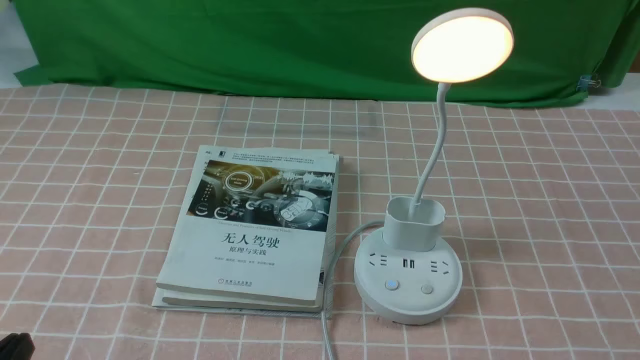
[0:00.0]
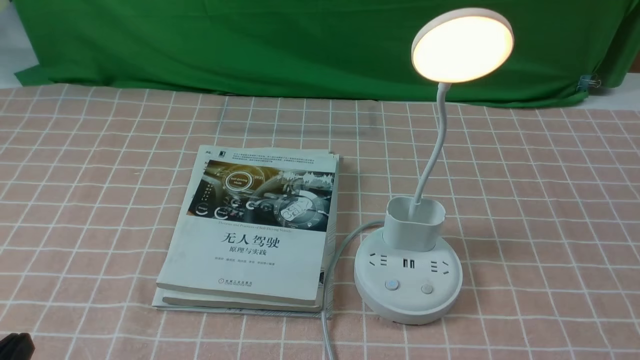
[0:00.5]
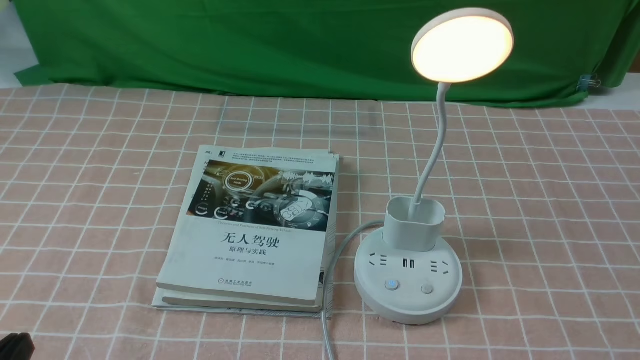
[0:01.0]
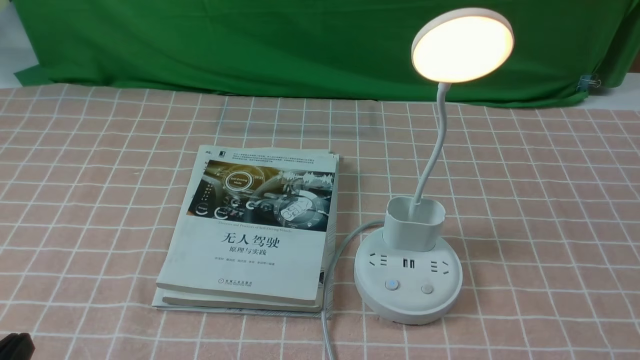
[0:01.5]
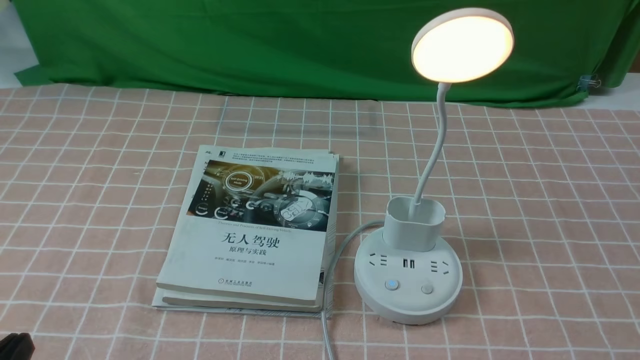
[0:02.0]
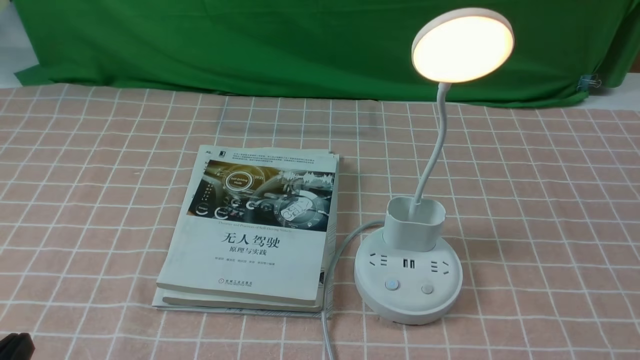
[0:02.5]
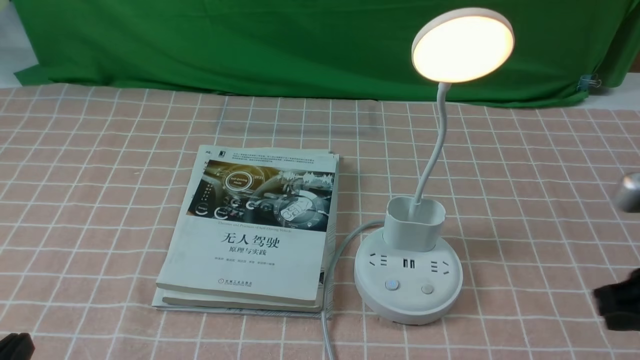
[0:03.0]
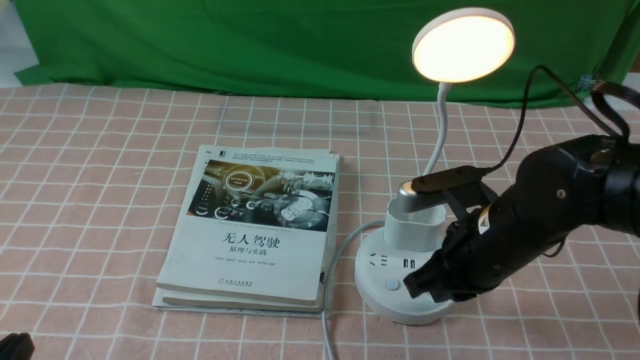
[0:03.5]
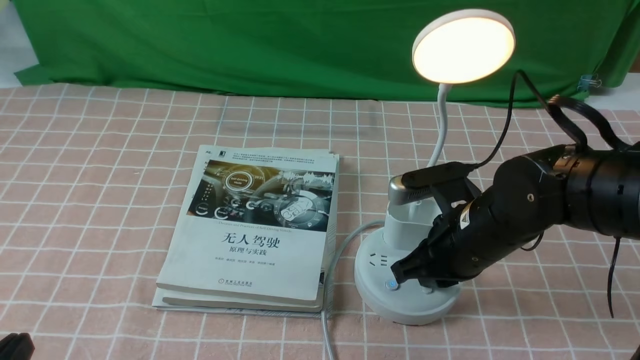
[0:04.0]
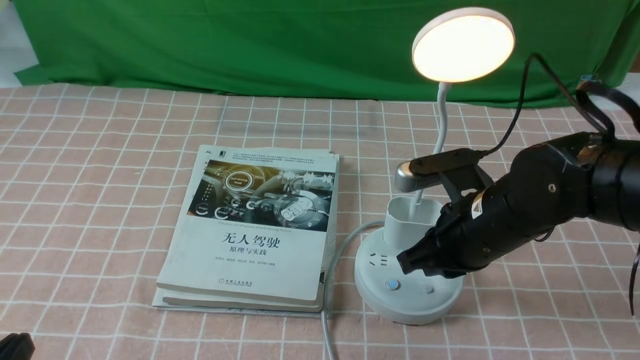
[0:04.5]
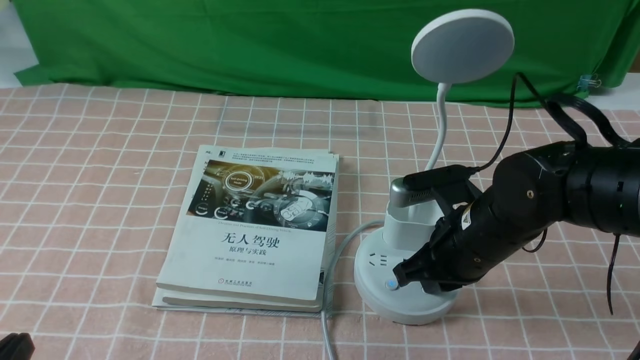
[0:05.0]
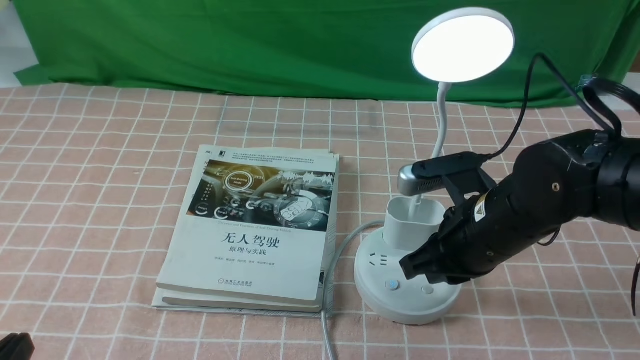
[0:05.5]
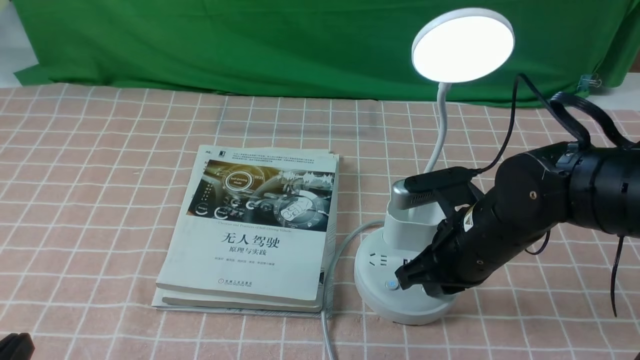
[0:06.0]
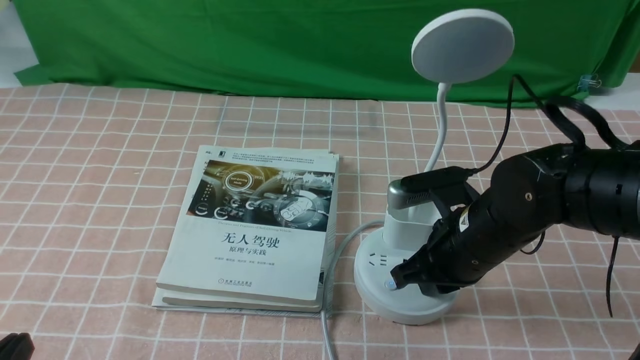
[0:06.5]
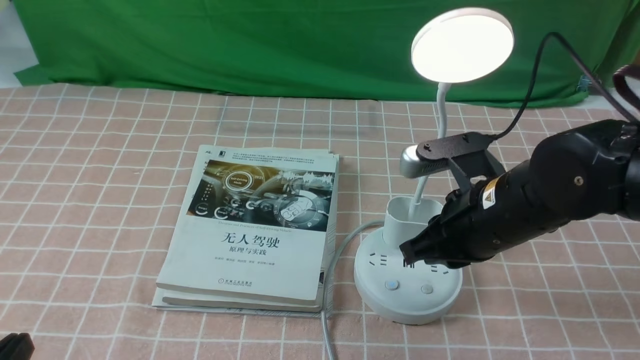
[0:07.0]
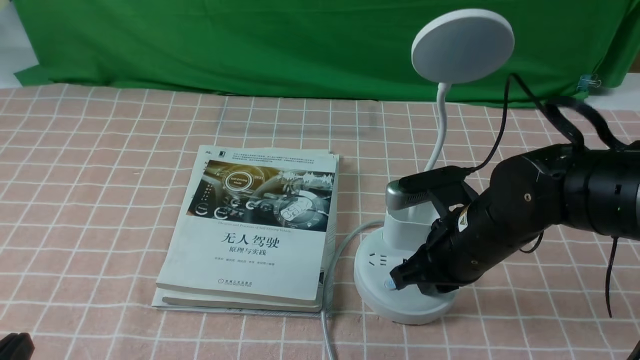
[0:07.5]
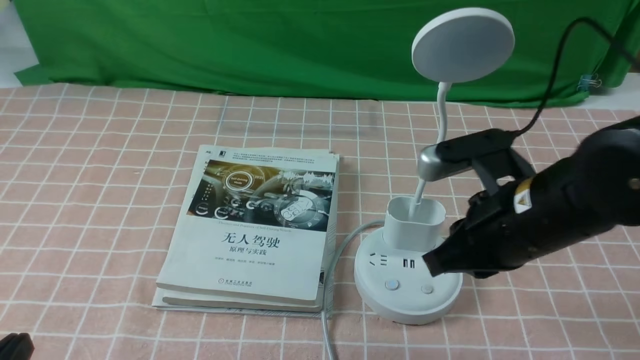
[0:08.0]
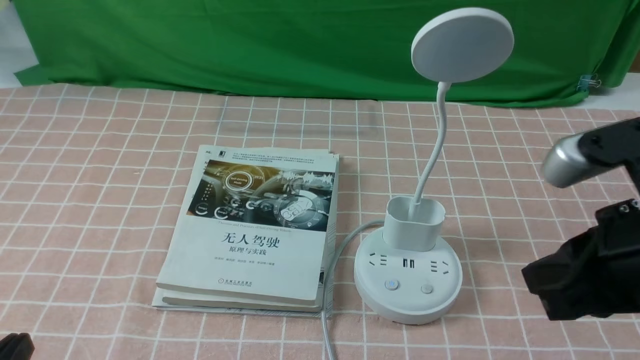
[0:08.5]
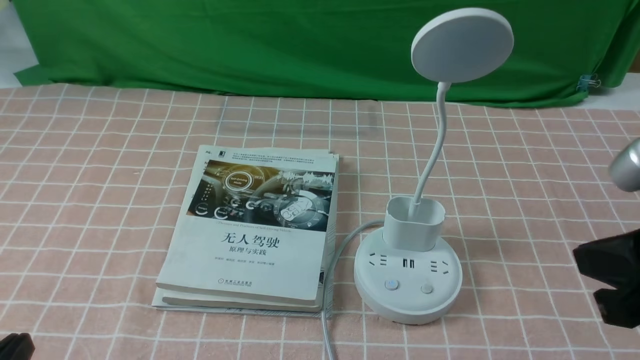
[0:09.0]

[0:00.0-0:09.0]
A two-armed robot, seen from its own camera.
Task of the whole recording: turn off the table lamp on the pink coffee tablecloth by hand.
Step, 0:00.0 to 0:07.5: use the right arm to press the button switch on the lamp holder.
0:02.0 to 0:04.5: The right gripper heads forward and to the left, covering approximately 30 cm, and closes up.
0:04.5 to 0:07.0: The grippers move only a little.
0:07.0 to 0:09.0: The right gripper shifts approximately 20 cm backward, to the right and upward.

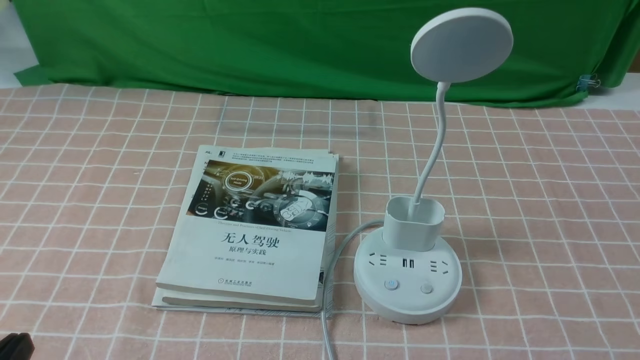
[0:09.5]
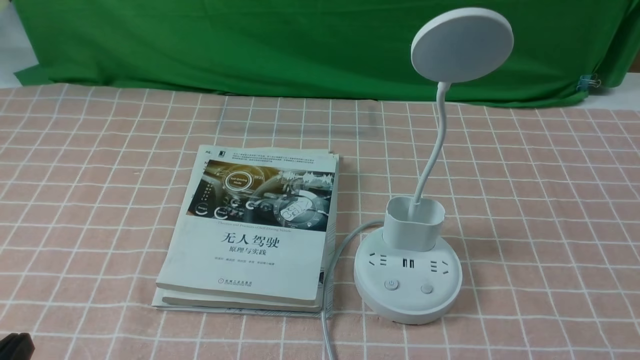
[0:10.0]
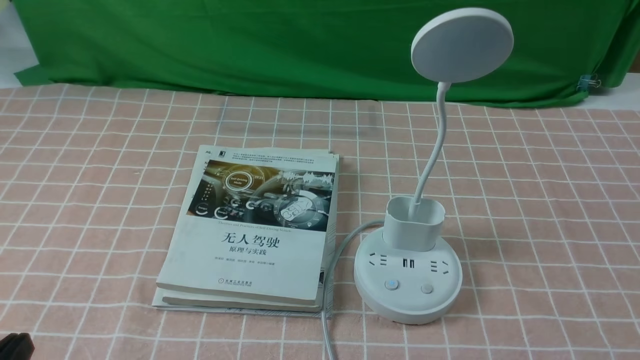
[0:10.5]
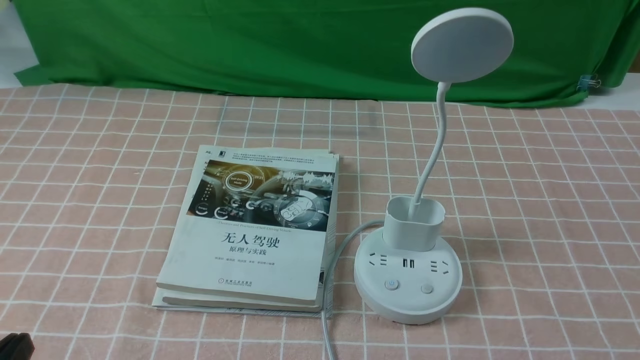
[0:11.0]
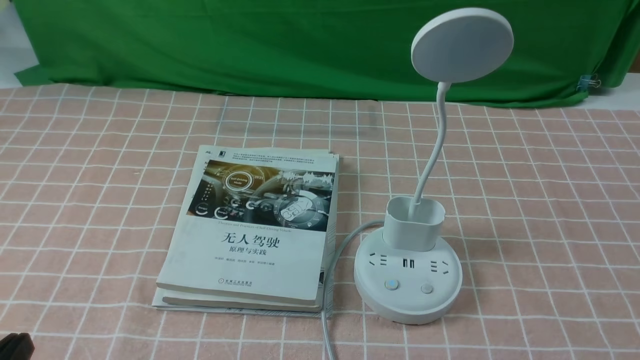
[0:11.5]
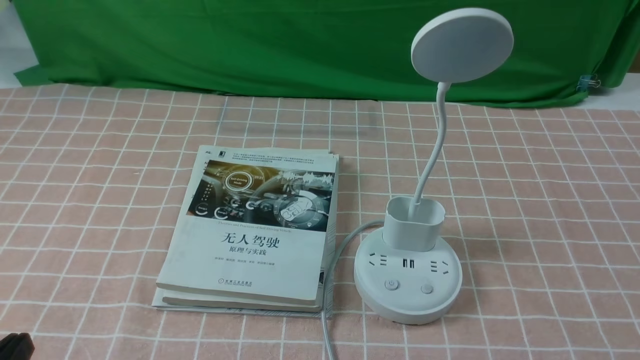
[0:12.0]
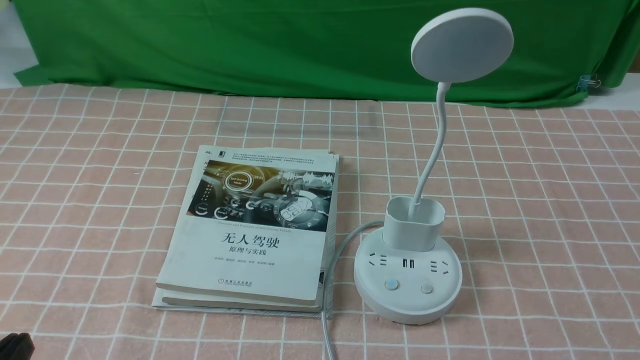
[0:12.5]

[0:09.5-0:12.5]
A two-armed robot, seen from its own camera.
Task of the whole recording: turn off the table lamp on the pink coffee tablecloth by hand.
0:11.0 to 0:12.5: Both grippers stay put.

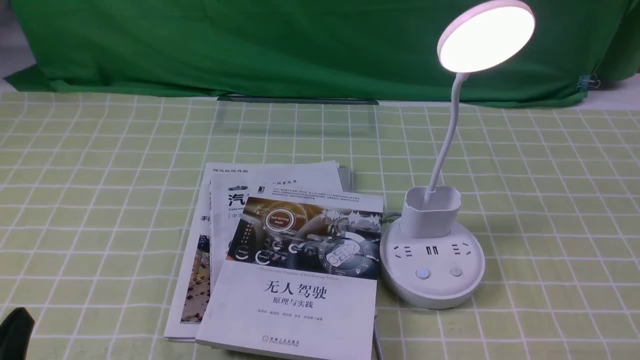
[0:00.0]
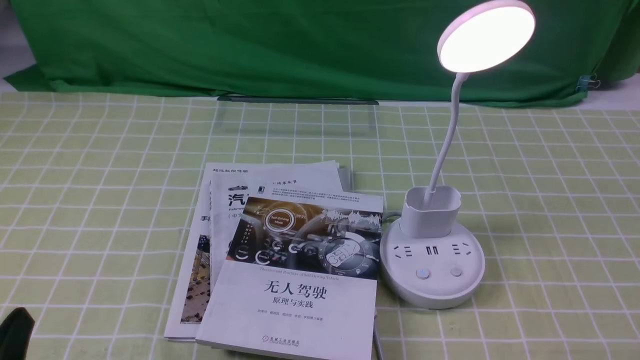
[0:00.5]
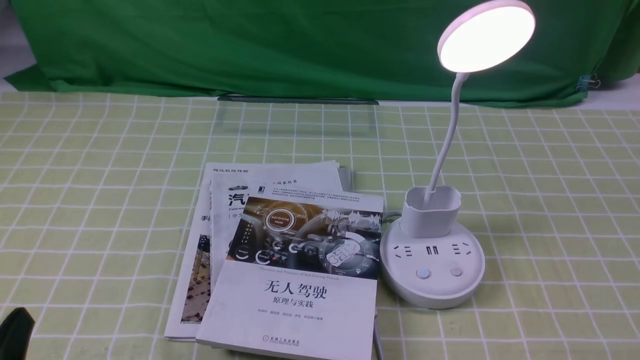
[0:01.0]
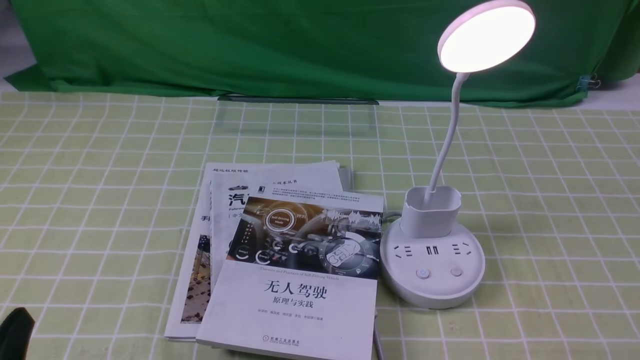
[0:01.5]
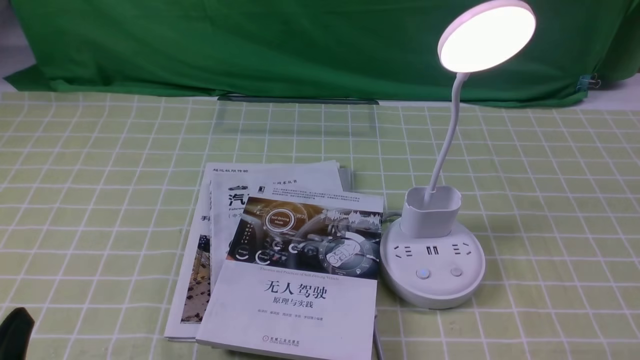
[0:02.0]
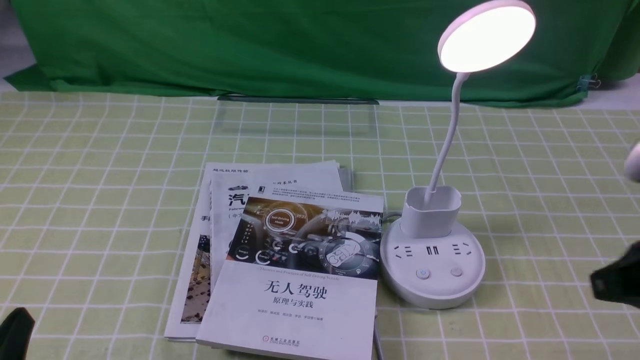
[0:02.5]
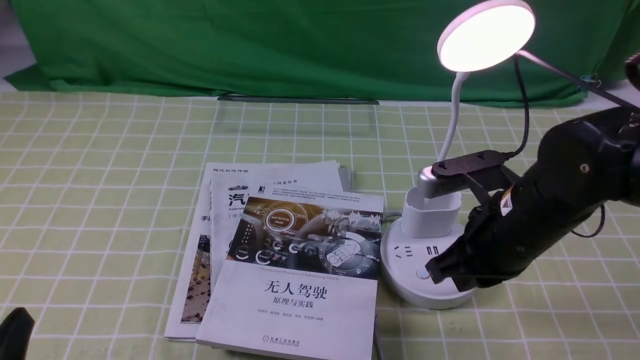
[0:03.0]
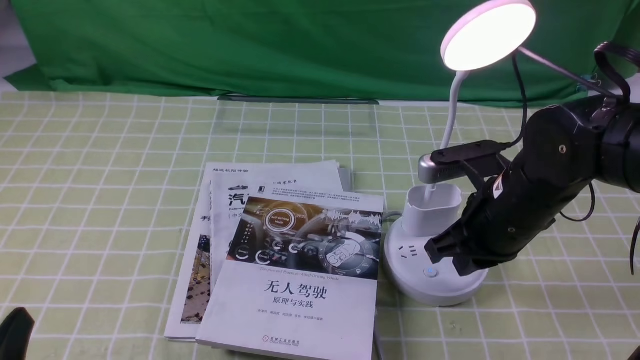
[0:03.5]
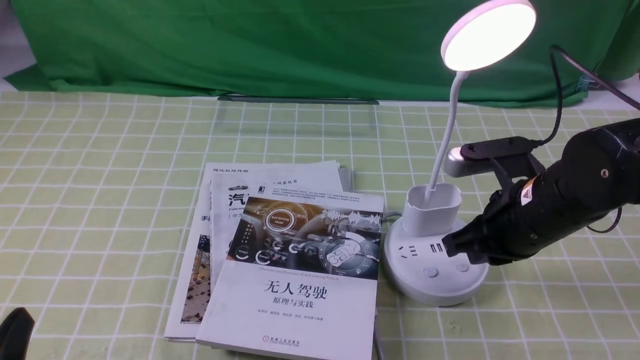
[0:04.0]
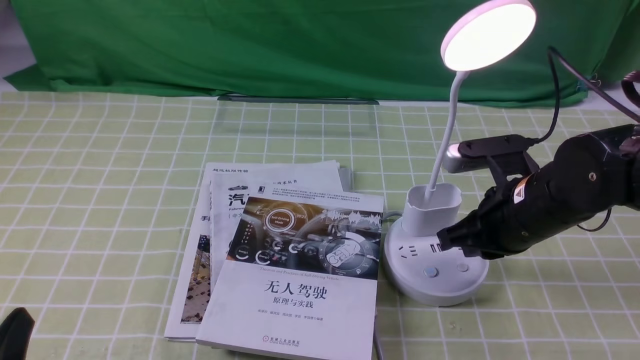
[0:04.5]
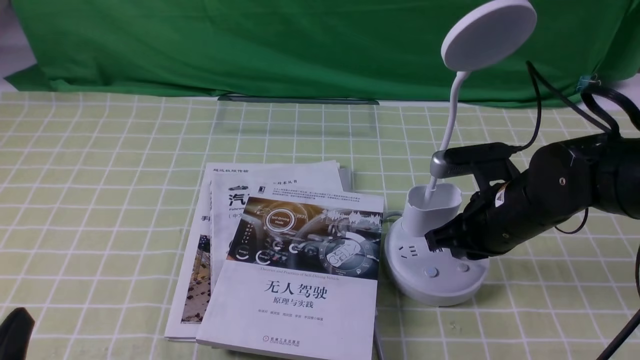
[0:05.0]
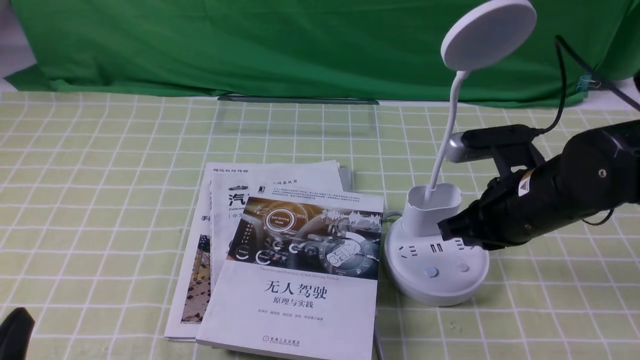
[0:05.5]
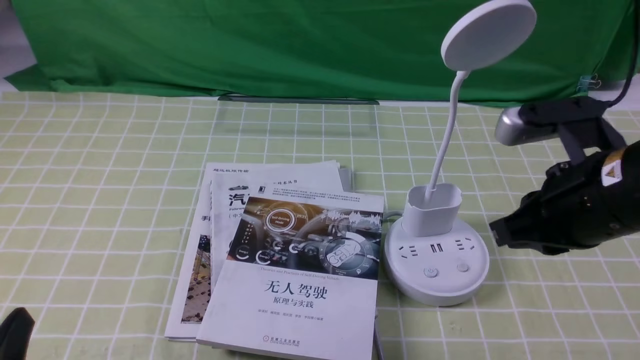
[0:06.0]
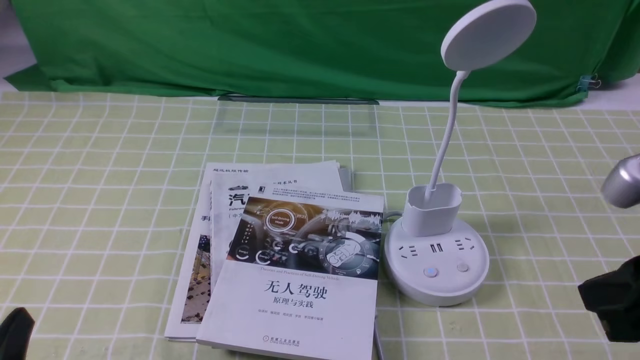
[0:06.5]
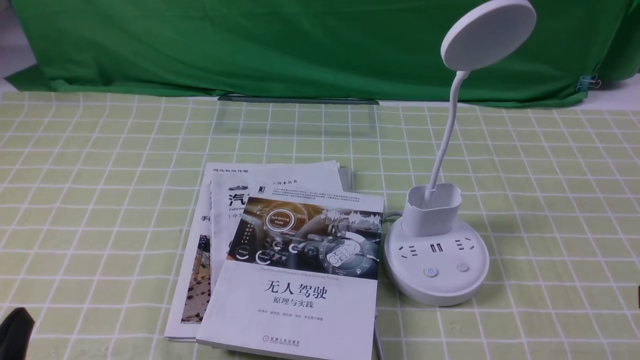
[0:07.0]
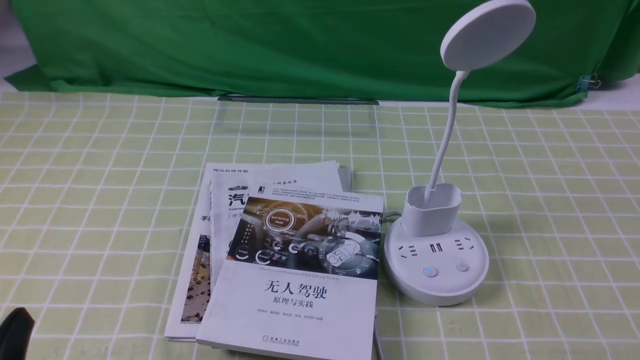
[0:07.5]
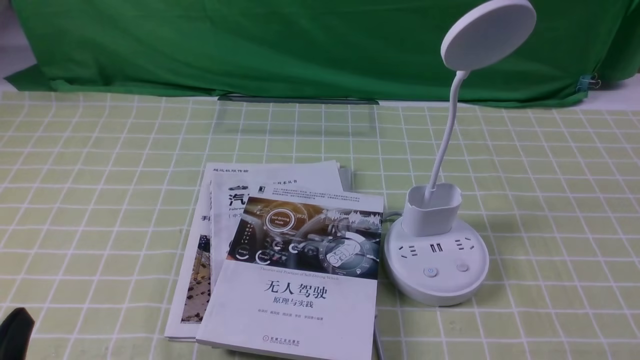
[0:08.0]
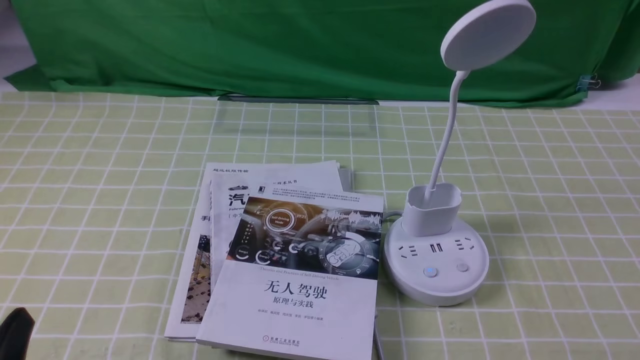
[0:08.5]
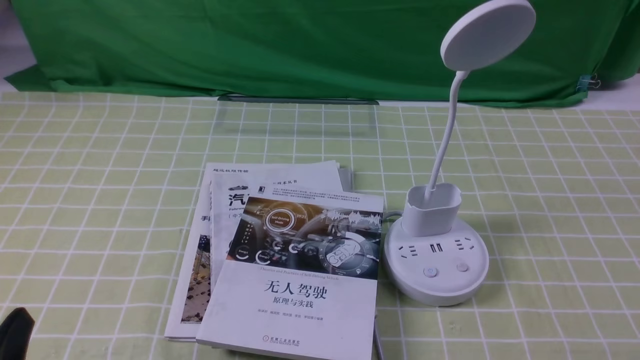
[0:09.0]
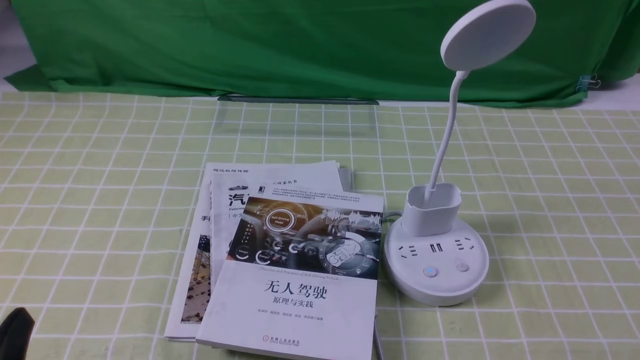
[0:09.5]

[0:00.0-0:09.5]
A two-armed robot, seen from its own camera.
Task of the whole recording: turn off the desk lamp on the green coffee tablecloth by hand.
Step, 0:00.0 to 0:05.0: use the right arm to press the button switch on the lamp holder.
0:02.0 to 0:04.0: The right gripper heads forward and to the left, covering some 25 cm.
0:04.0 to 0:05.5: There are only small adjustments of the grippers.
0:05.5 to 0:07.5: The right gripper moves backward and to the right, about 30 cm.
